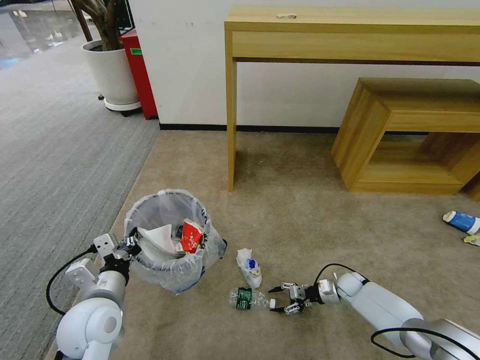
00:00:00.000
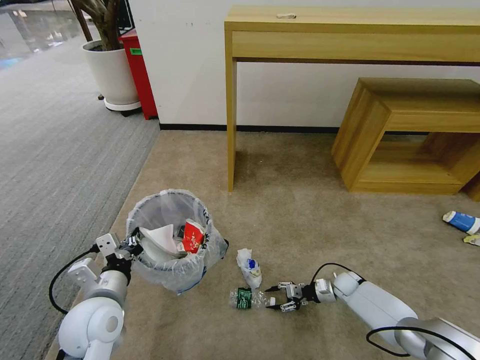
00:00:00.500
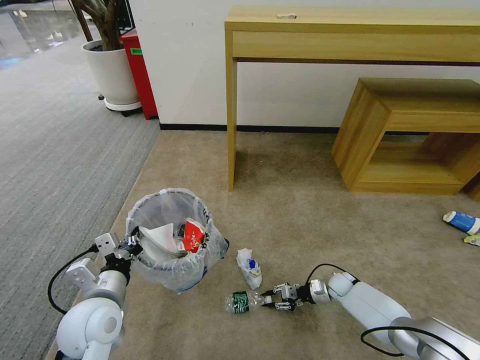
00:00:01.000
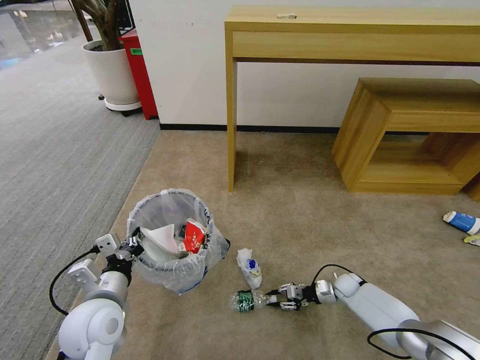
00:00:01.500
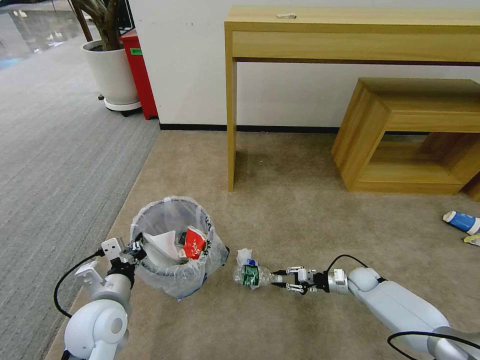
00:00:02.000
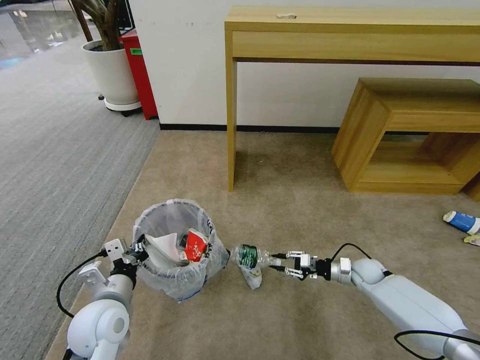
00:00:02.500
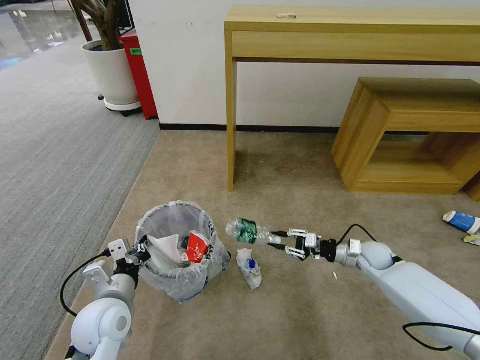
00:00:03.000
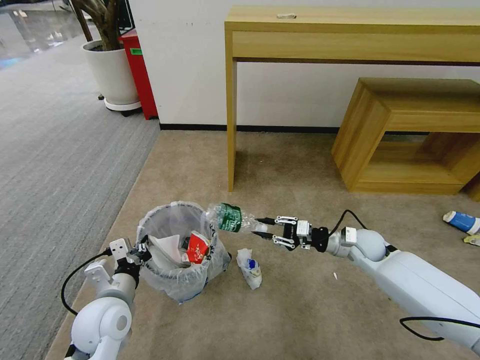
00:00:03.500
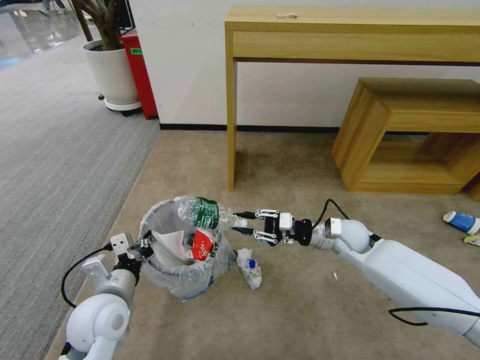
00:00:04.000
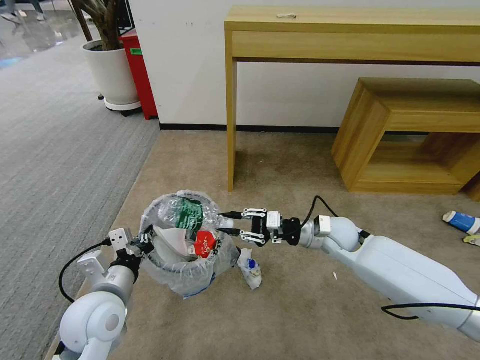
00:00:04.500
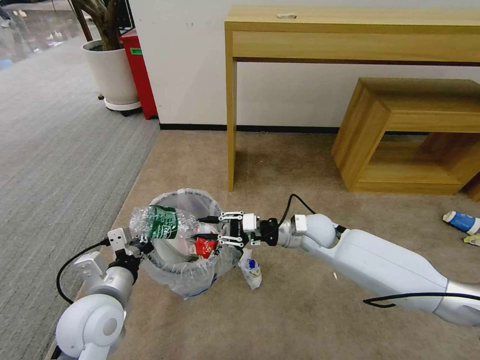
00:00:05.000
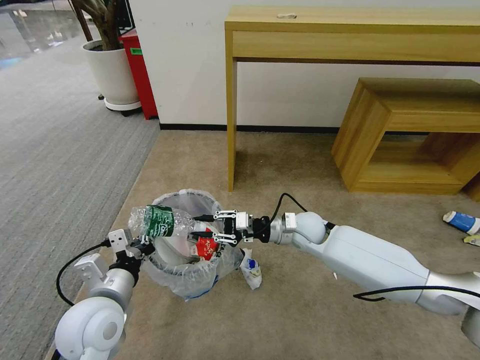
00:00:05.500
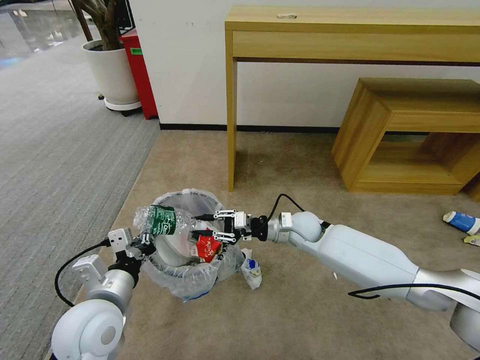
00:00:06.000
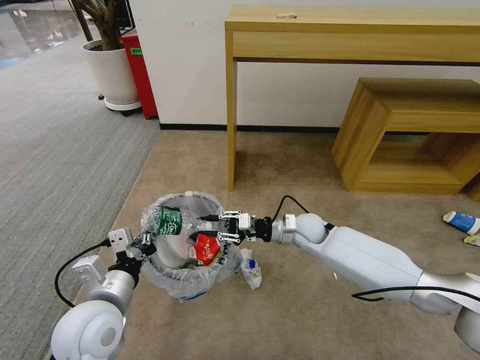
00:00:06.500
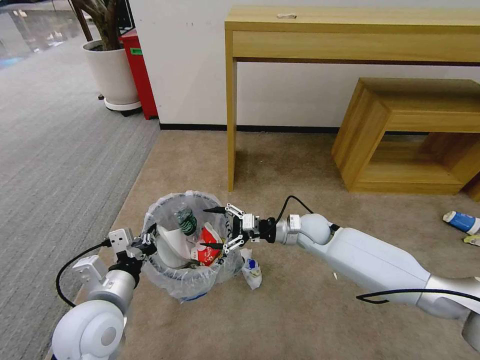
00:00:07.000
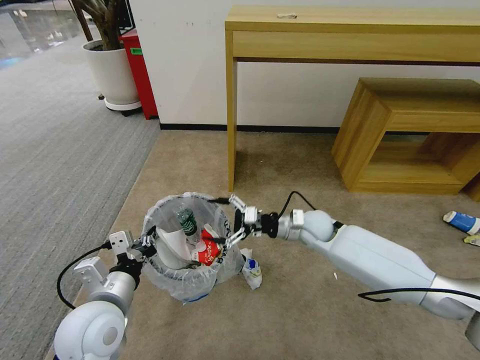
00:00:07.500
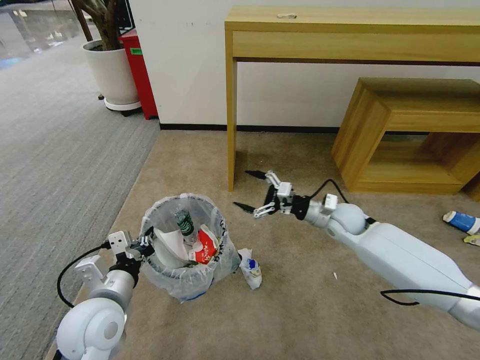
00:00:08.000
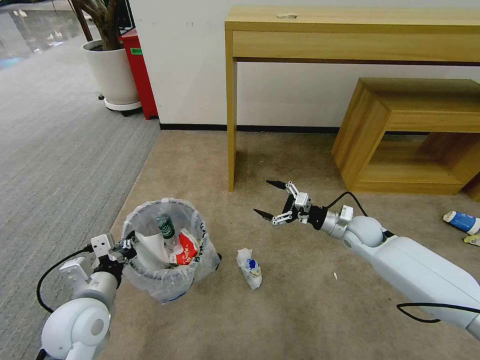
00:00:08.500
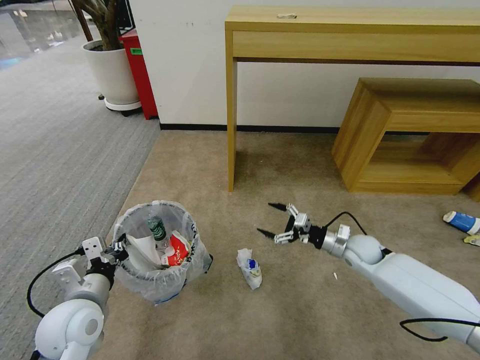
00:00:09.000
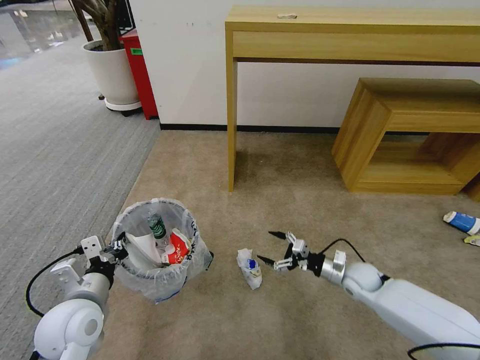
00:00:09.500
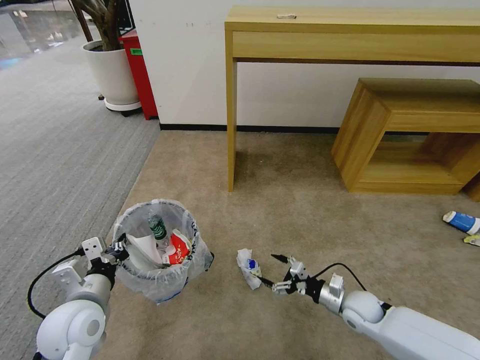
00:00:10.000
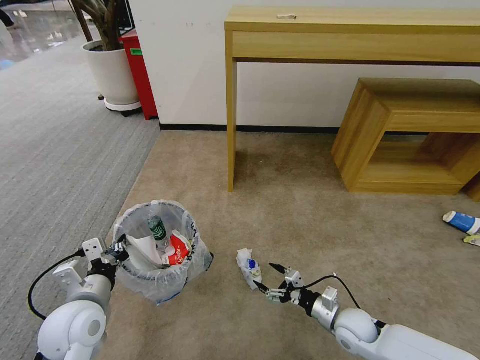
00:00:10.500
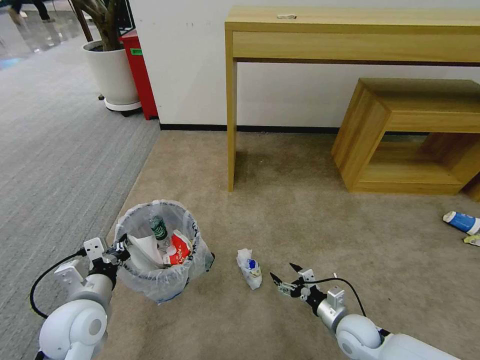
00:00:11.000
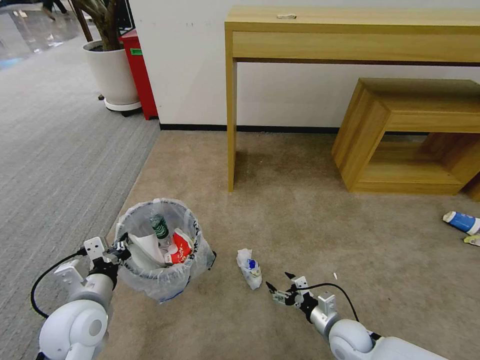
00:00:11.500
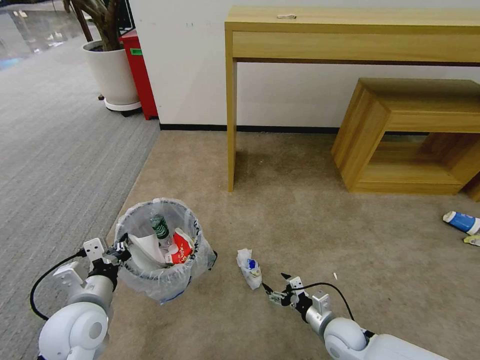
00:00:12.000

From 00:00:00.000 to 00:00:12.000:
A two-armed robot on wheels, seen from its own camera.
Task of the whole recording: Pick up the trash bin and place the garbage on the floor into it.
From 00:00:00.000 to 00:00:02.000: The grippers move only a little.
From 00:00:02.000 to 00:00:04.000: The right gripper goes roughly 25 cm upward and to the left.
From 00:00:04.000 to 00:00:06.000: The left gripper moves some 5 cm; the right gripper travels to the left by about 10 cm.
From 00:00:06.000 to 00:00:08.000: The right gripper shifts approximately 10 cm to the right, and opens.
From 00:00:08.000 to 00:00:10.000: The left gripper changes place by roughly 5 cm; the right gripper travels downward and backward by approximately 25 cm.
From 00:00:10.000 to 00:00:12.000: The right gripper goes approximately 10 cm backward and to the left.

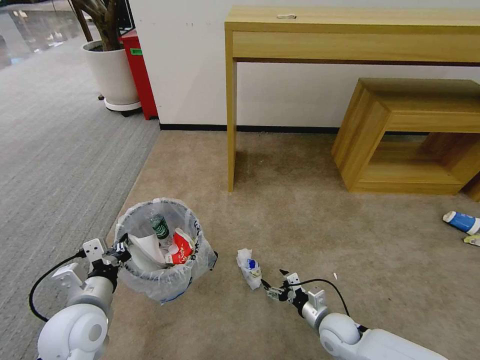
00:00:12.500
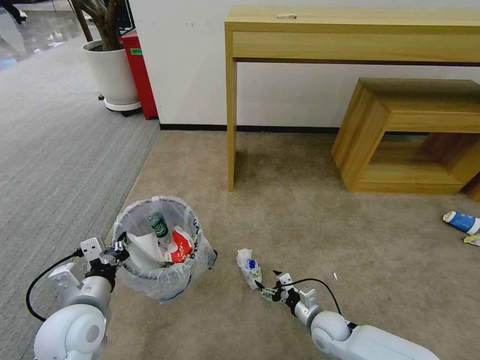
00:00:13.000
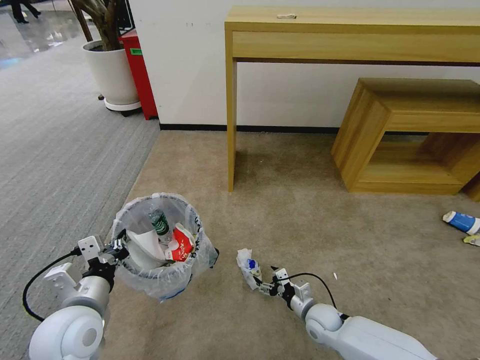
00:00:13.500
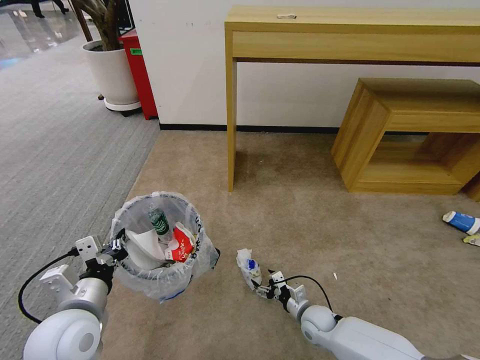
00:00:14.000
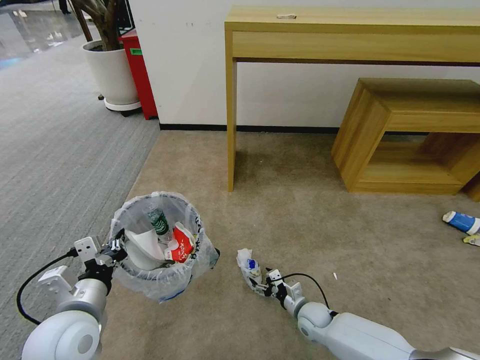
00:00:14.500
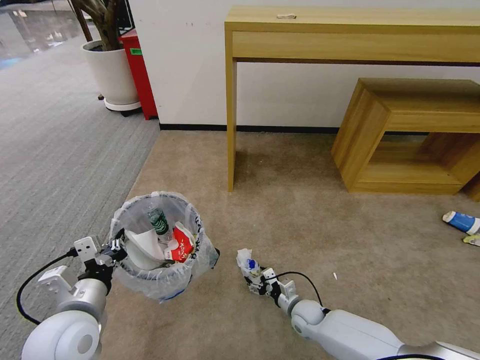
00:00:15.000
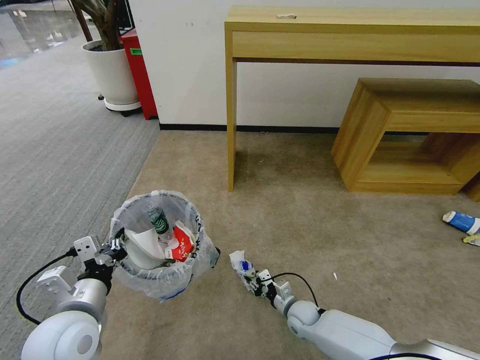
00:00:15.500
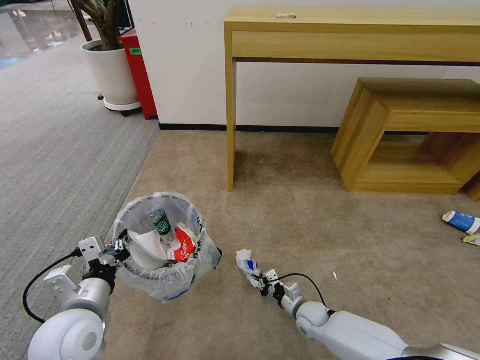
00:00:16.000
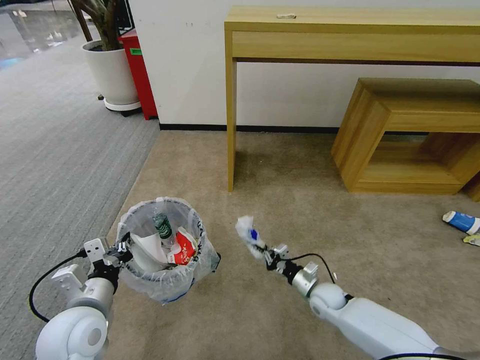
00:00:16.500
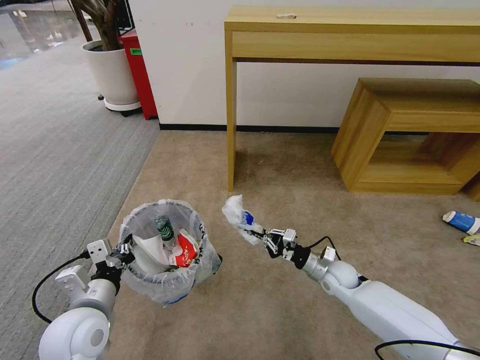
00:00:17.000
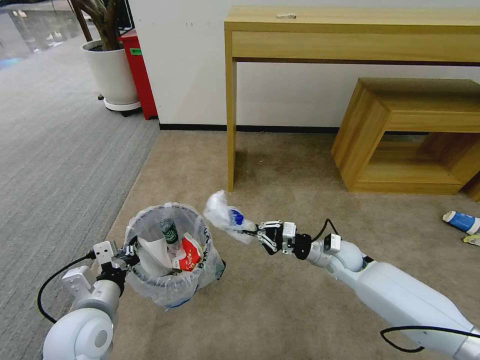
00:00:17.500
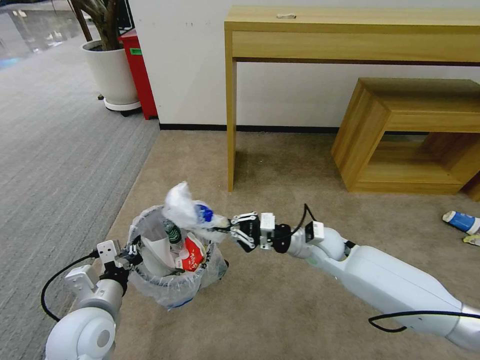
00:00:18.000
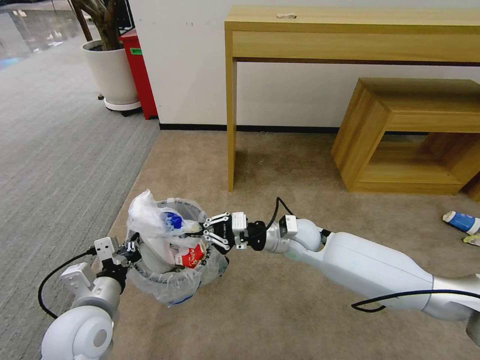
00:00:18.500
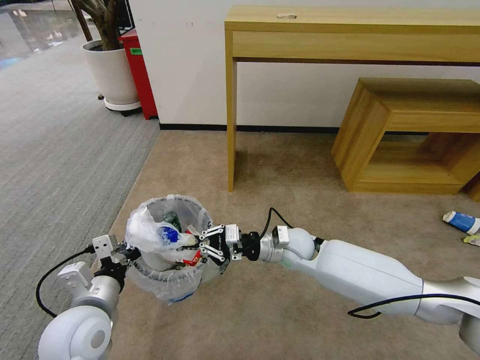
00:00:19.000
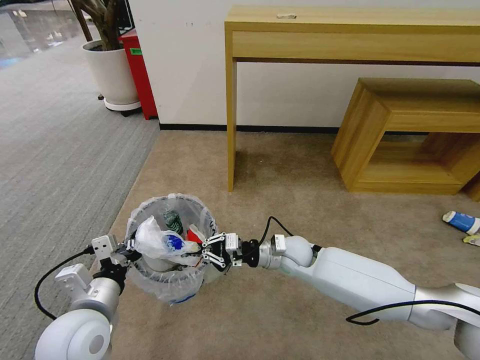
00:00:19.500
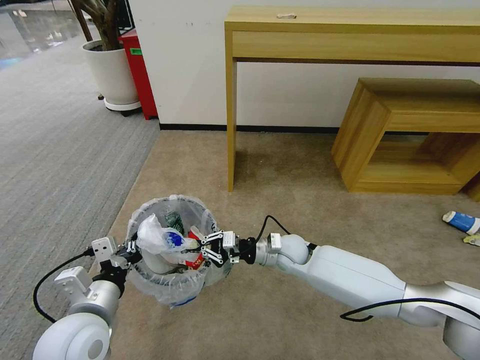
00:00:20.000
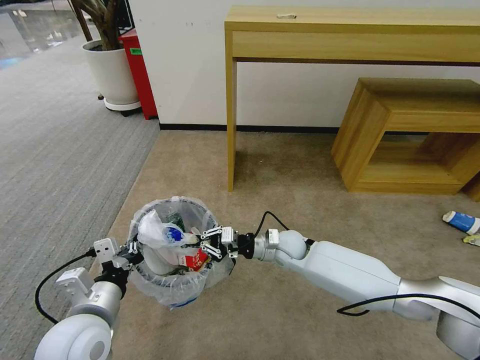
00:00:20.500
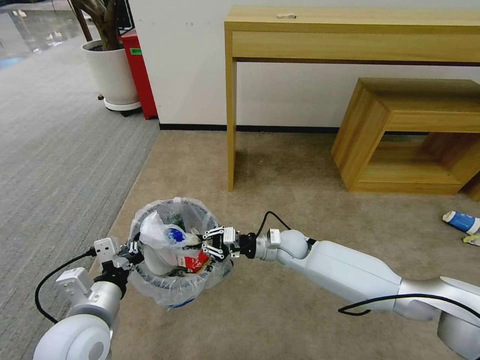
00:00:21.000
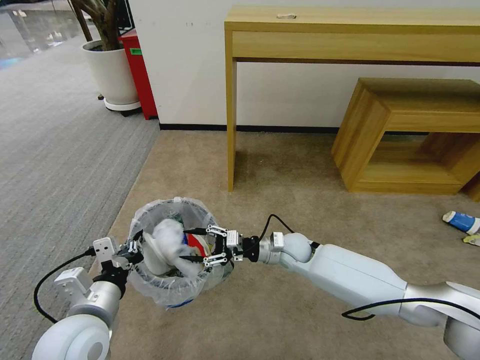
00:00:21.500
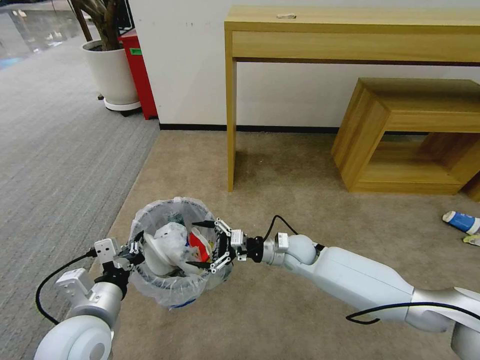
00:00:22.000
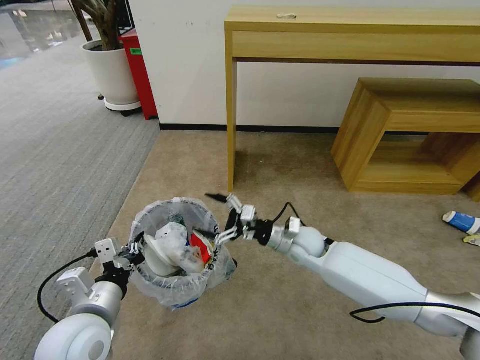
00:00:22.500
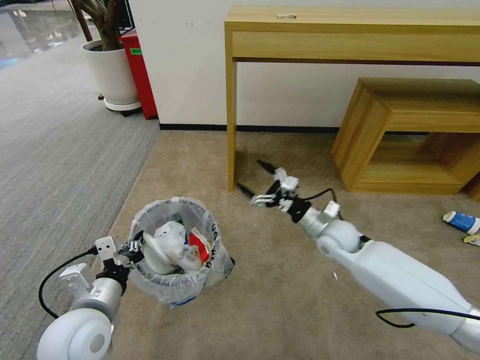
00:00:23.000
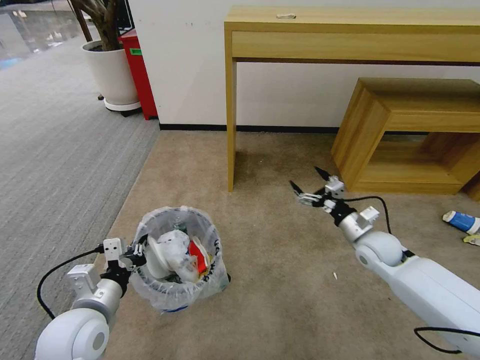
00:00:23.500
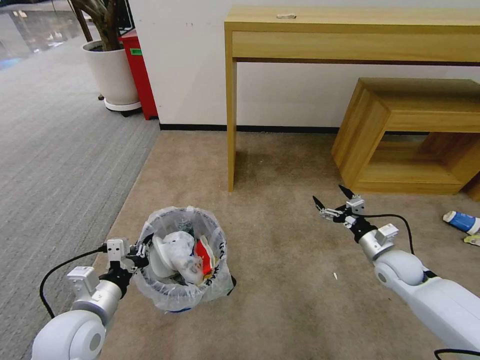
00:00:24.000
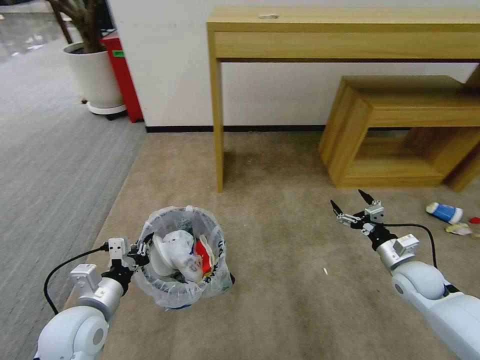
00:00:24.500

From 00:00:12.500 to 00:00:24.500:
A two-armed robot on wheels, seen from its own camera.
Task of the whole recording: Pick up the trash bin and place the garbage on the floor into it.
From 00:00:12.500 to 00:00:14.500: The right gripper heads downward, covering about 5 cm.
From 00:00:14.500 to 00:00:16.500: The right gripper heads upward, covering some 5 cm, and closes its fingers.
From 00:00:16.500 to 00:00:18.500: The right gripper moves upward and to the left, about 25 cm.
From 00:00:18.500 to 00:00:20.500: The right gripper goes about 5 cm downward.
From 00:00:20.500 to 00:00:22.500: The right gripper opens.
From 00:00:22.500 to 00:00:24.500: The left gripper shifts by about 5 cm; the right gripper shifts about 25 cm to the right.

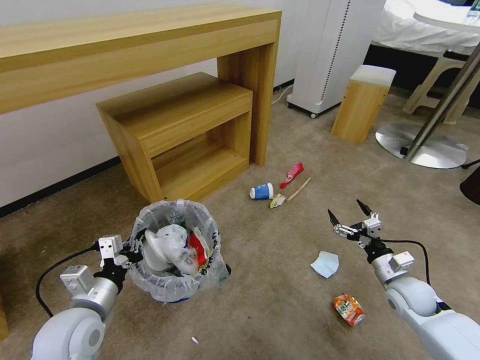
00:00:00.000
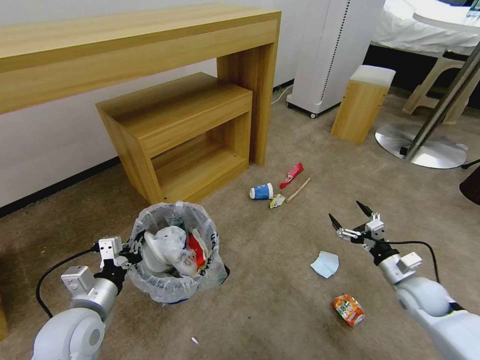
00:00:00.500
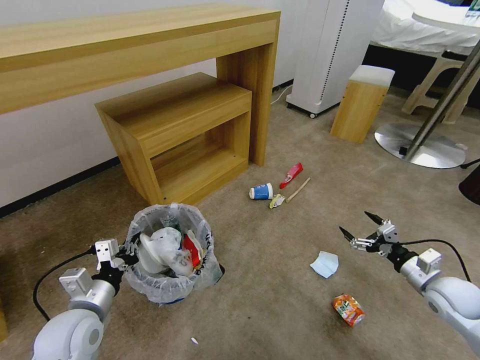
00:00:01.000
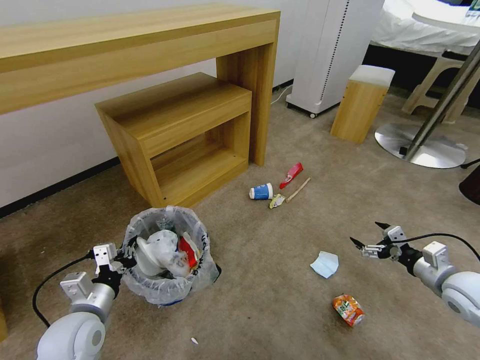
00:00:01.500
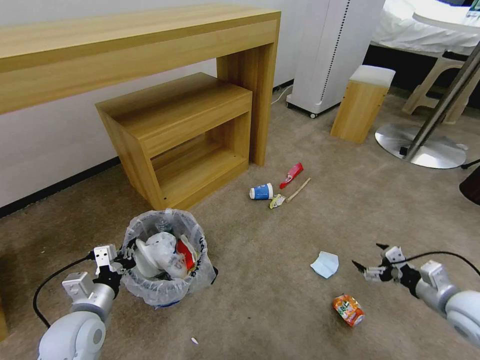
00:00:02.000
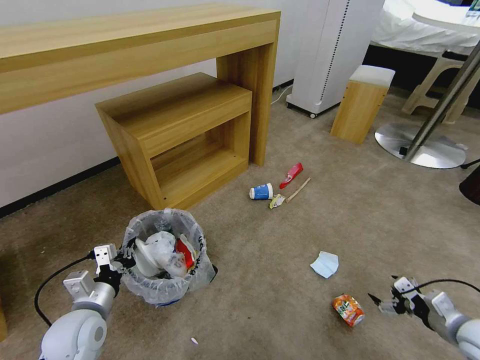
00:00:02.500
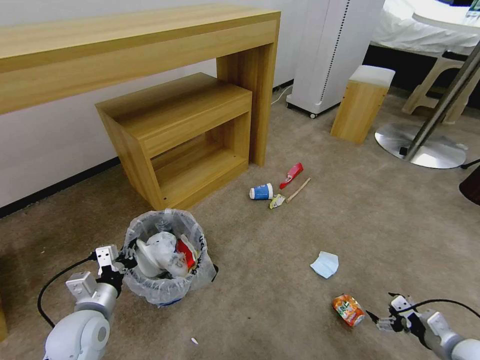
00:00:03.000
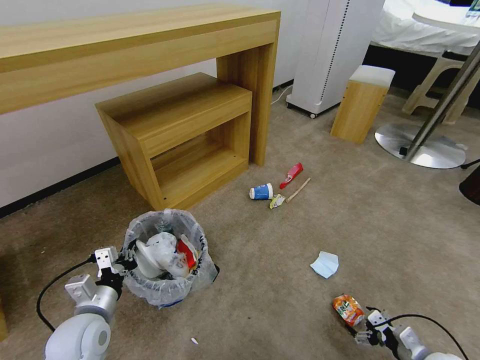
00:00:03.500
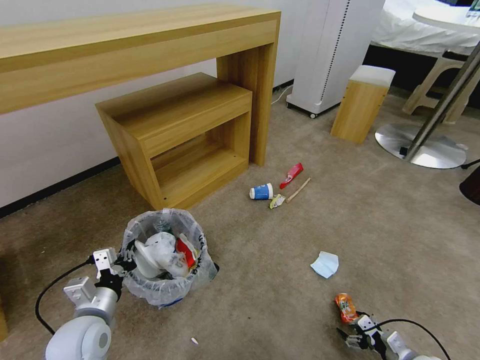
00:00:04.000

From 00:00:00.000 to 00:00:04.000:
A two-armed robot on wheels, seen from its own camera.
Task of the whole recording: Pick up the trash bin and place the garbage on the floor into it.
From 00:00:00.000 to 00:00:02.000: The right gripper travels upward, backward and to the right by about 10 cm.
From 00:00:02.000 to 00:00:04.000: The right gripper shifts approximately 20 cm downward and backward.
